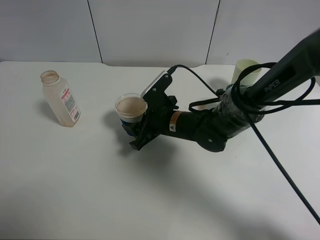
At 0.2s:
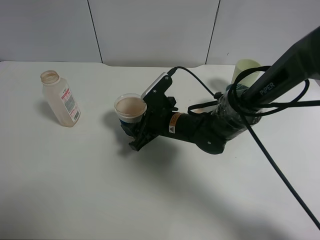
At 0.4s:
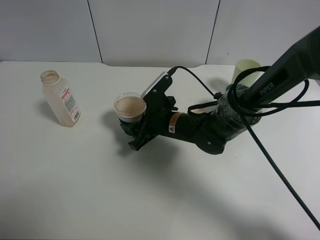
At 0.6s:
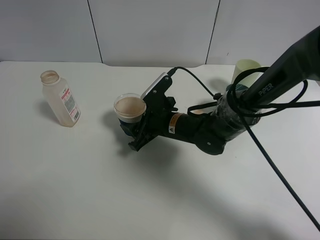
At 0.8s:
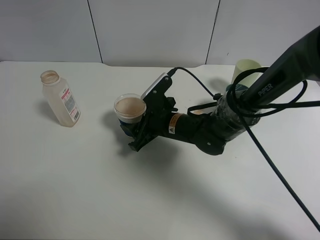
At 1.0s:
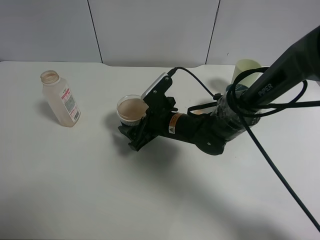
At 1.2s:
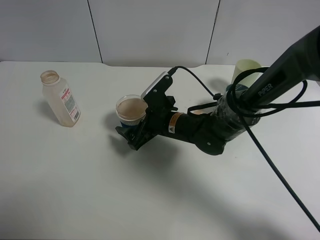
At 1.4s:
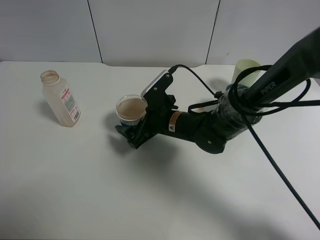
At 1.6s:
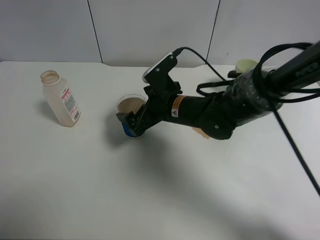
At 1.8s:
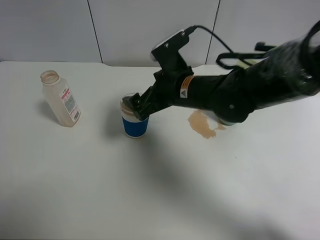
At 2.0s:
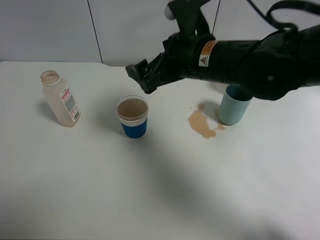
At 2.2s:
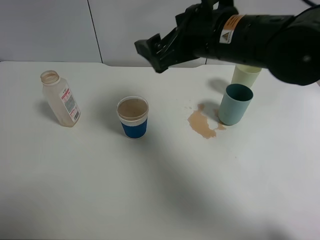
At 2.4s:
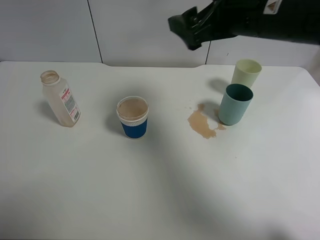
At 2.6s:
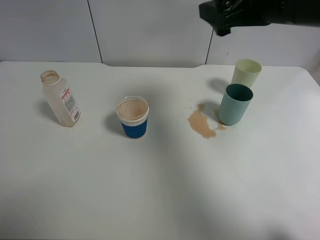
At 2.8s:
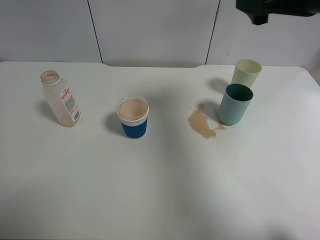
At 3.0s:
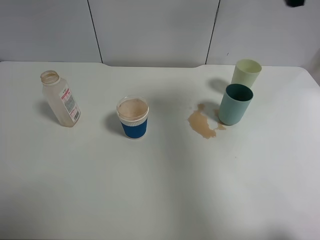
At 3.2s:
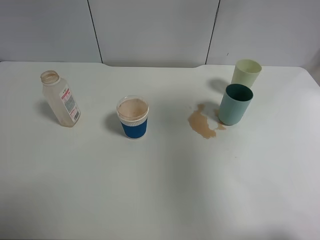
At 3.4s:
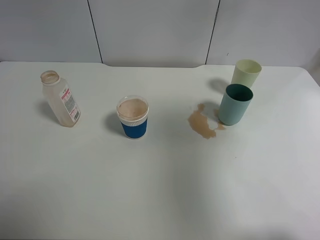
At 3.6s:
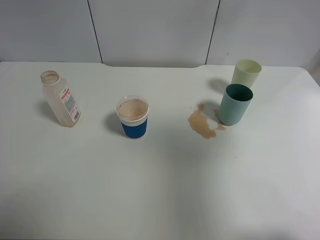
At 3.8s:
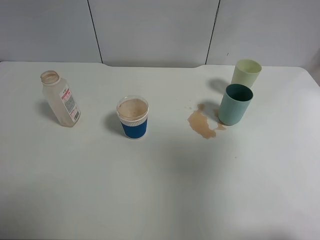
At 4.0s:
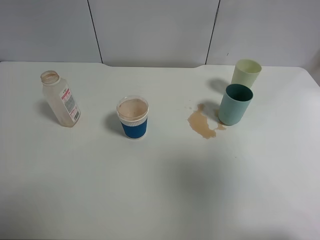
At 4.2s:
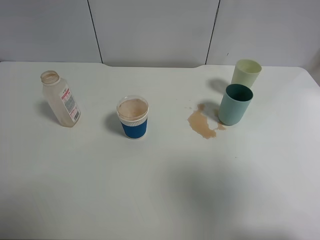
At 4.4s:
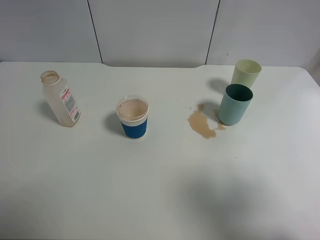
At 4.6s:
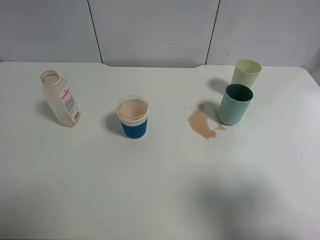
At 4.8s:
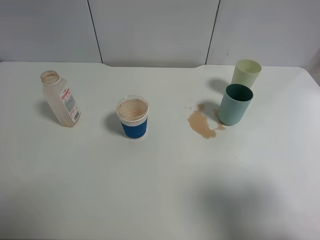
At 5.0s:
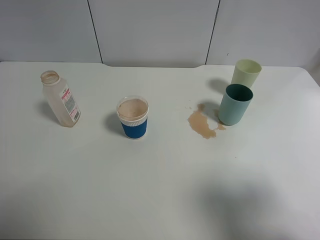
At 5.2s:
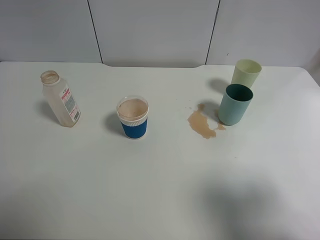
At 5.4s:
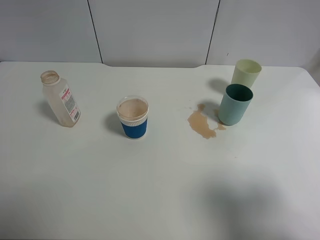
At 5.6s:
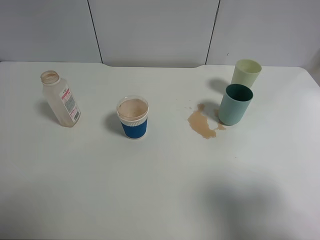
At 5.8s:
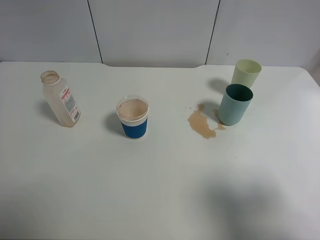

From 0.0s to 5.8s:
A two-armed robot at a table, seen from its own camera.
Task of the whole recording: use a clamp to hold the bottle of the drink, pour the beverage into a random cup, then clamp the cup containing the drink and pour the drink into another random cup.
From 0.0s to 1.4s: The right gripper opens up.
From 1.4s to 2.8s: The right gripper shifts some 30 cm upward and to the right.
From 2.8s to 4.4s: The right gripper moves backward, approximately 25 cm.
From 4.4s to 5.8s: The grippers stay close to where they were, moving slightly.
